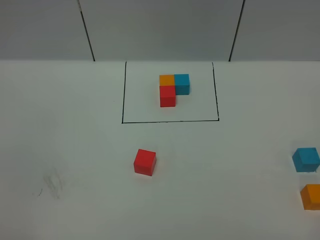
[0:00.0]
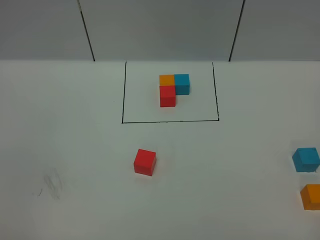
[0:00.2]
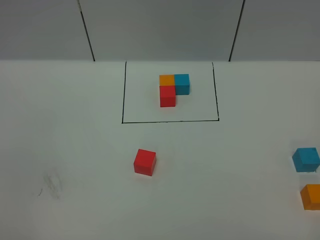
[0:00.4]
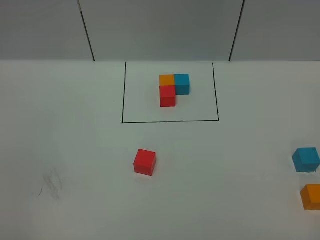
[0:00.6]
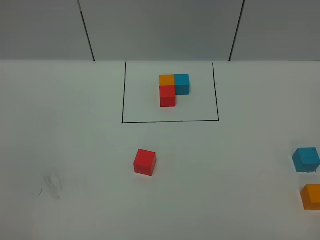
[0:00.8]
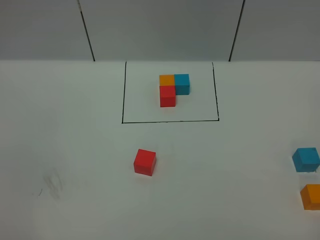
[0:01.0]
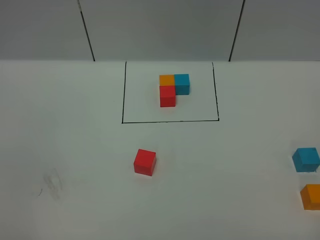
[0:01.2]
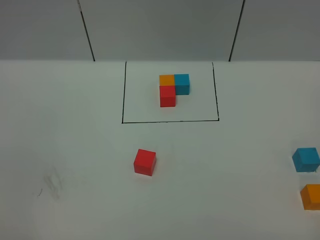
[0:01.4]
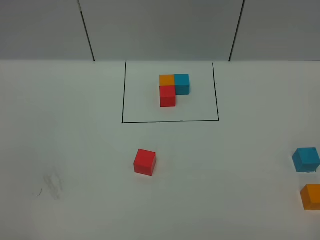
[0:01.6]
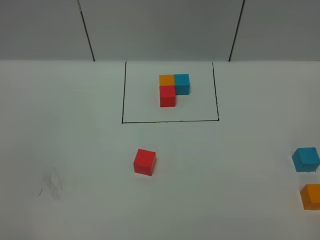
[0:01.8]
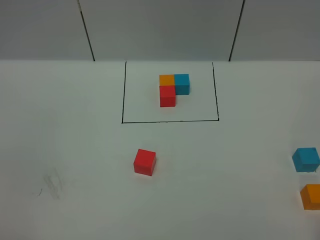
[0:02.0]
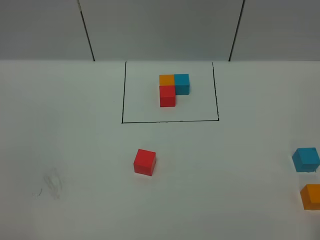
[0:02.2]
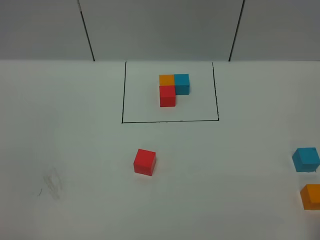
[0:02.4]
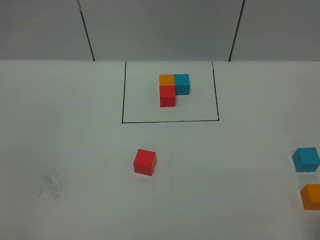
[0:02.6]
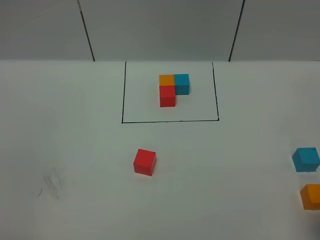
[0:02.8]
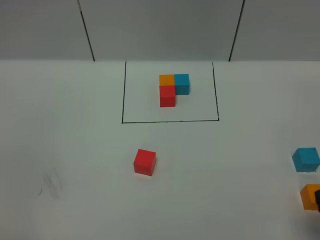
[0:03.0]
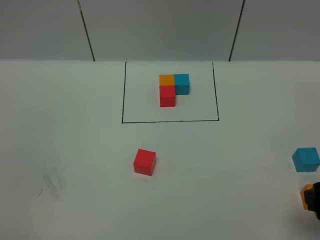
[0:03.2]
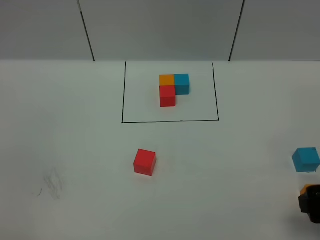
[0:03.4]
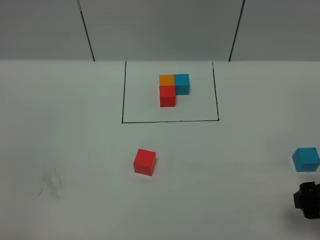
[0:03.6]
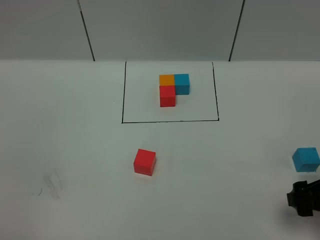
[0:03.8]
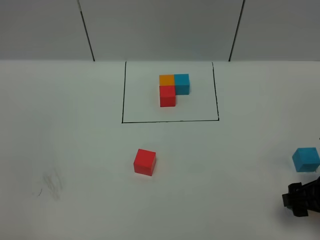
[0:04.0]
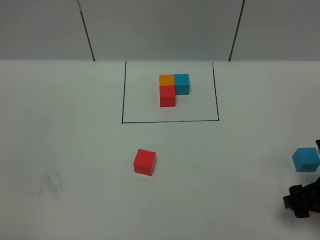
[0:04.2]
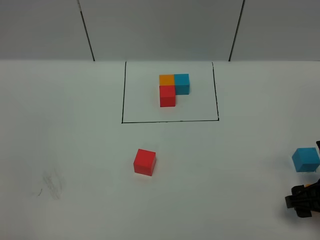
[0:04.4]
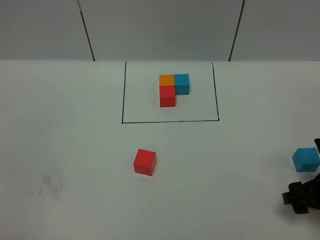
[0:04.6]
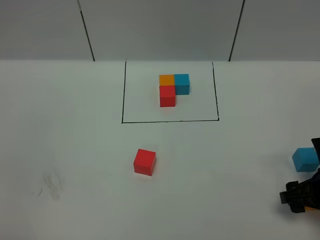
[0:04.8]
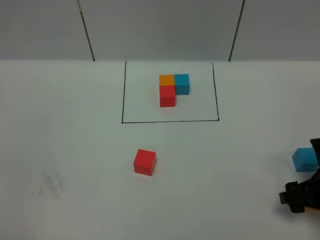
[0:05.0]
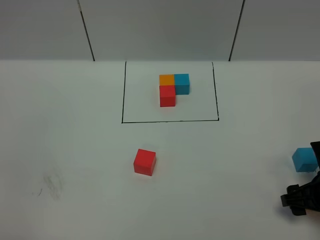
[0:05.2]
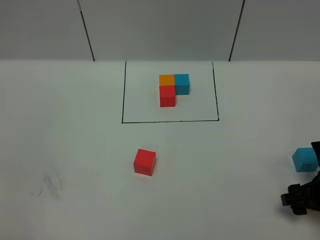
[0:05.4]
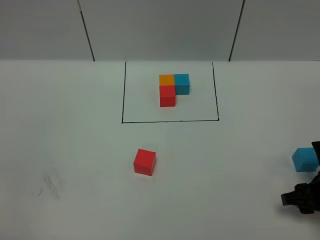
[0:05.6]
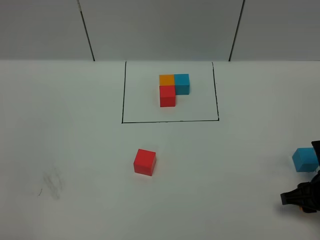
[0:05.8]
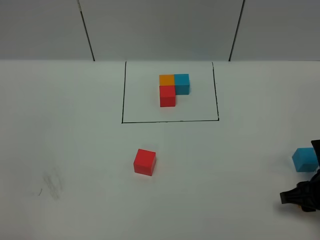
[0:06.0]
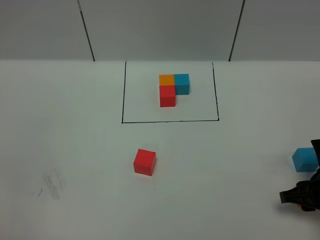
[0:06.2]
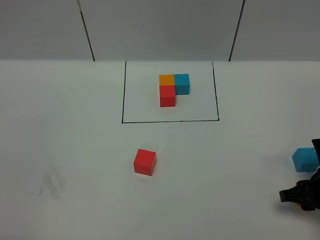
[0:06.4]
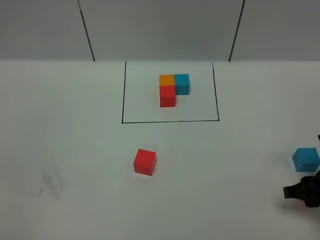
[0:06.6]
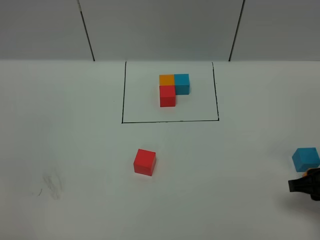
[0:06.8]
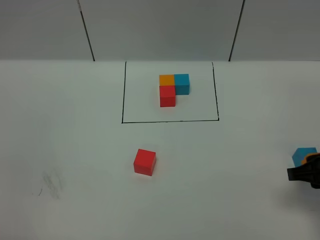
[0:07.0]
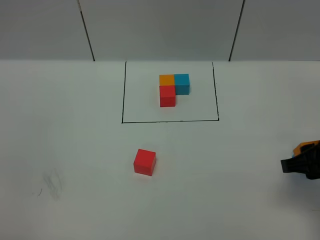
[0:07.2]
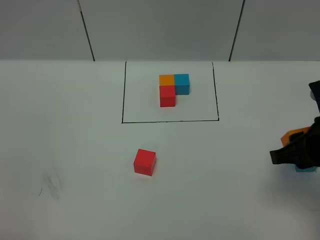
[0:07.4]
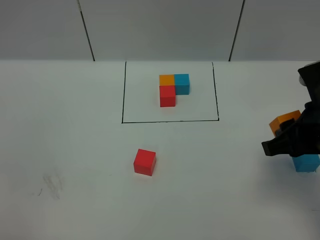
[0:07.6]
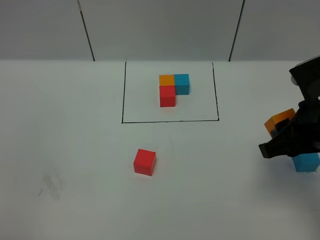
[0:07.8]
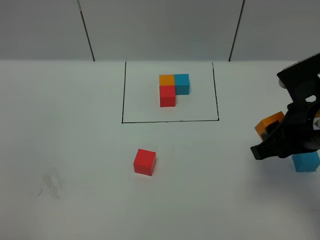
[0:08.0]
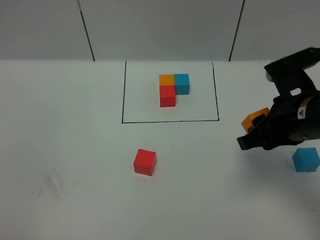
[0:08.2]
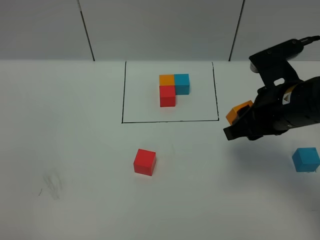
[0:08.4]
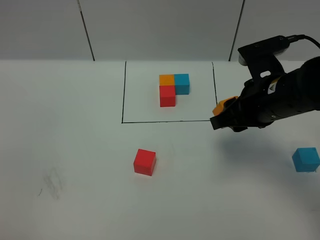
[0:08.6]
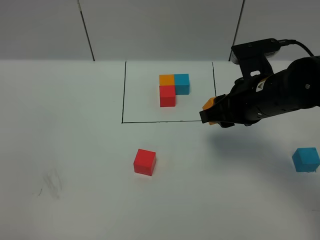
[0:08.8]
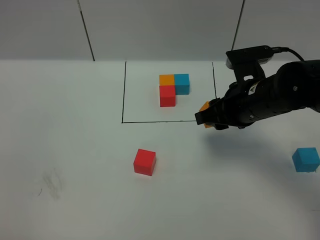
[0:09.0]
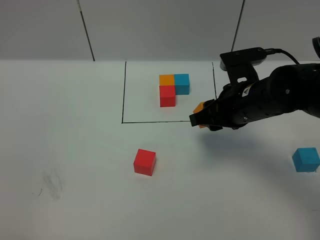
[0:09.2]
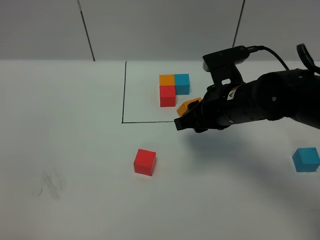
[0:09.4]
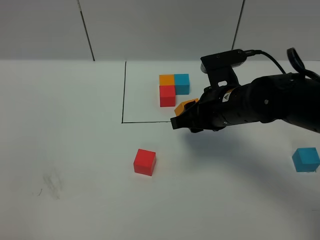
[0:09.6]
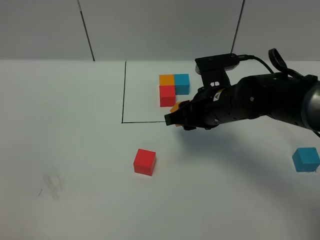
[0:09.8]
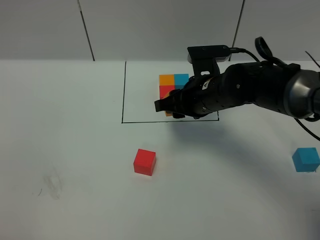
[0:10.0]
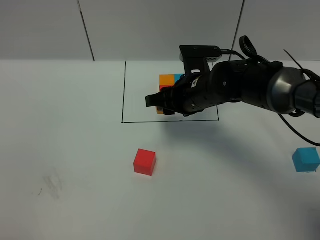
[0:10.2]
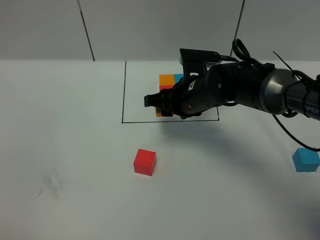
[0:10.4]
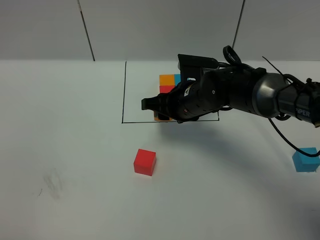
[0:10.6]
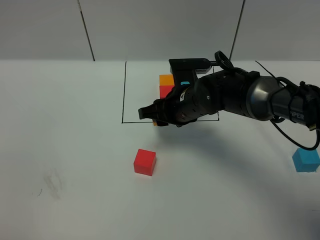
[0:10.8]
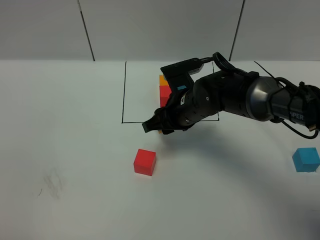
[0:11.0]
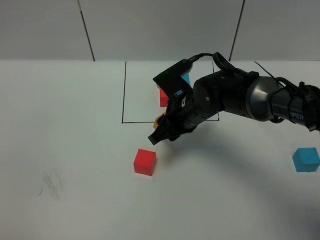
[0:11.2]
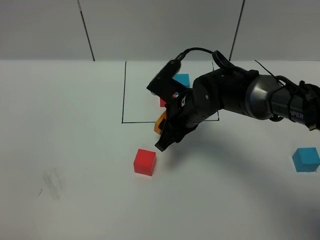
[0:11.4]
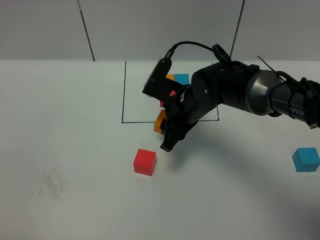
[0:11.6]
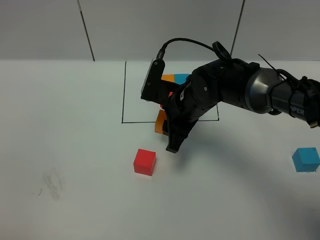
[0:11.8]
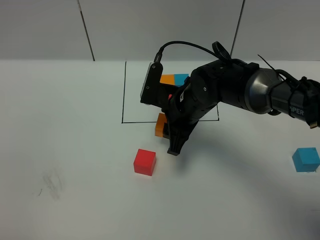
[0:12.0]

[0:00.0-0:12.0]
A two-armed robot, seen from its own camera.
Task of the whole recording: According to the building block template in front, assemble the scattered blocks together.
0:01.6 to 0:03.0: The right gripper heads forward, covering about 15 cm.
0:03.0 to 0:04.4: The right gripper shifts roughly 10 cm downward and forward.
0:04.4 to 0:06.0: The right gripper closes up.
0:06.0 to 0:07.6: The right gripper moves upward and to the left, roughly 15 cm.
0:07.6 to 0:09.0: The right gripper goes roughly 15 cm forward, to the left and downward.
0:09.0 to 0:10.4: The right gripper shifts roughly 10 cm to the left and forward.

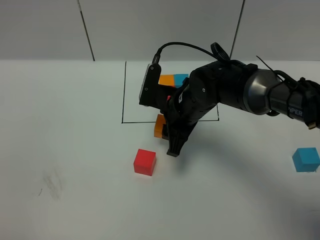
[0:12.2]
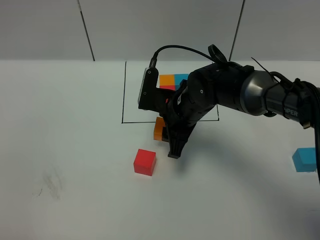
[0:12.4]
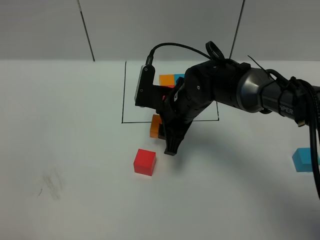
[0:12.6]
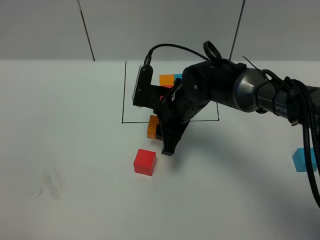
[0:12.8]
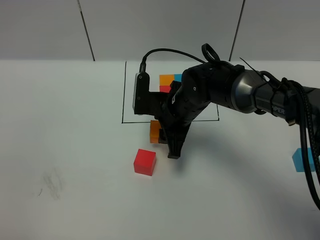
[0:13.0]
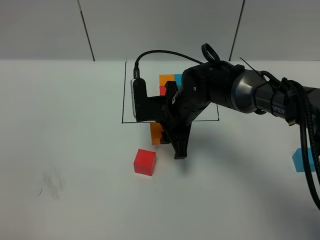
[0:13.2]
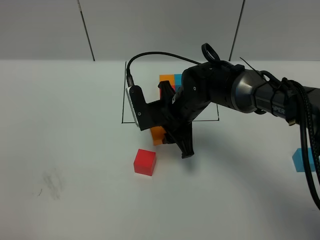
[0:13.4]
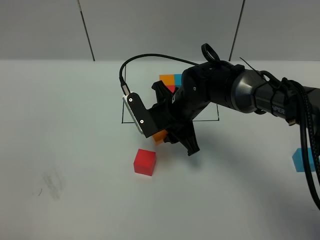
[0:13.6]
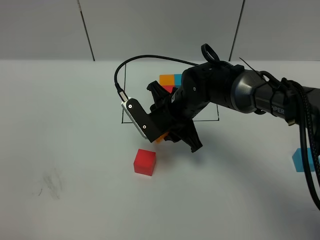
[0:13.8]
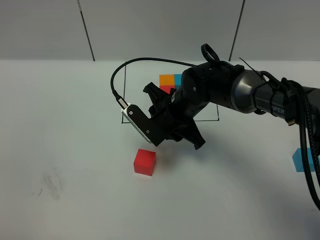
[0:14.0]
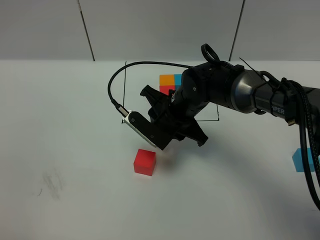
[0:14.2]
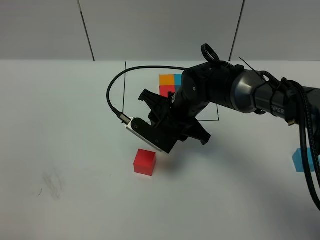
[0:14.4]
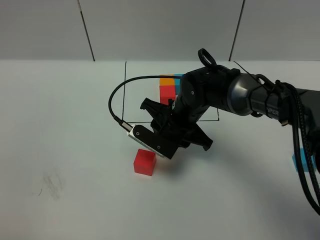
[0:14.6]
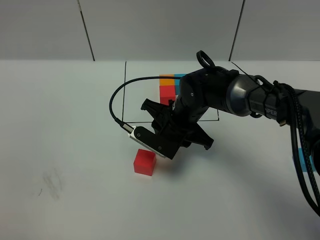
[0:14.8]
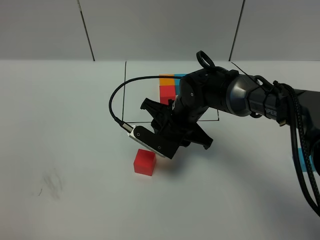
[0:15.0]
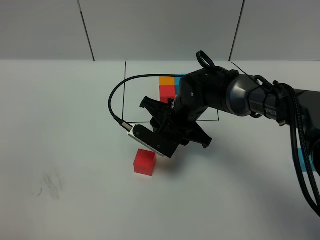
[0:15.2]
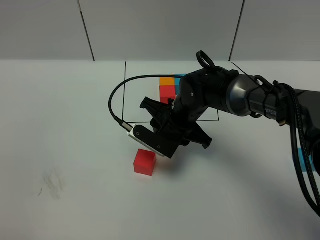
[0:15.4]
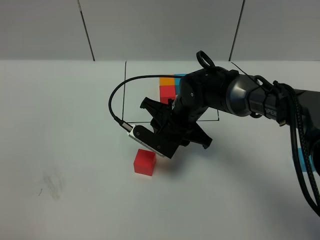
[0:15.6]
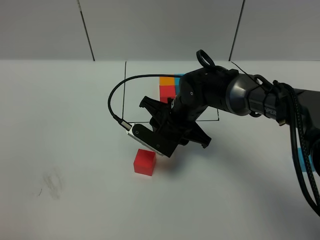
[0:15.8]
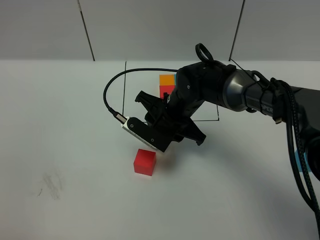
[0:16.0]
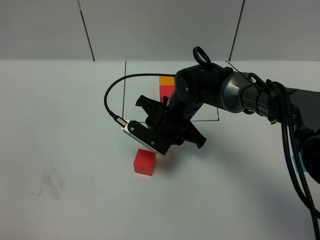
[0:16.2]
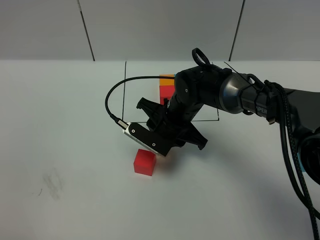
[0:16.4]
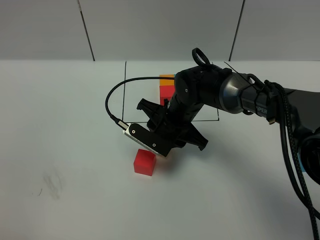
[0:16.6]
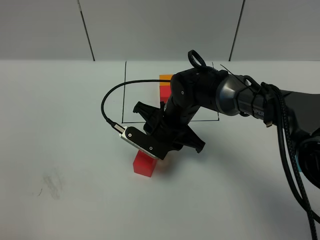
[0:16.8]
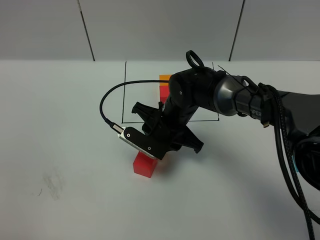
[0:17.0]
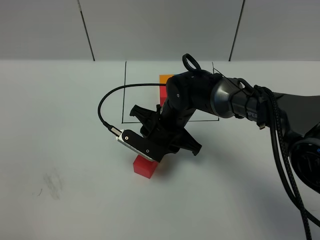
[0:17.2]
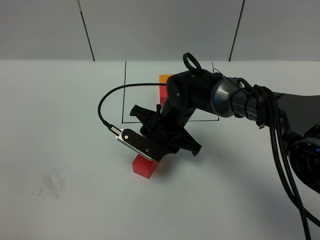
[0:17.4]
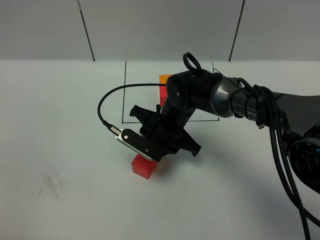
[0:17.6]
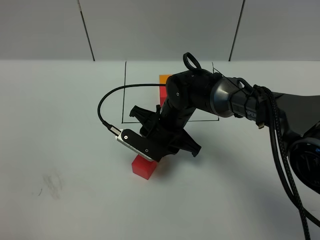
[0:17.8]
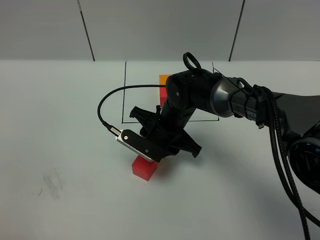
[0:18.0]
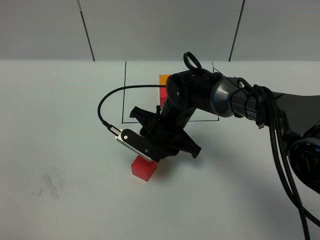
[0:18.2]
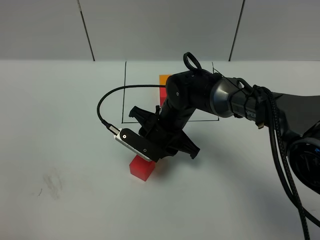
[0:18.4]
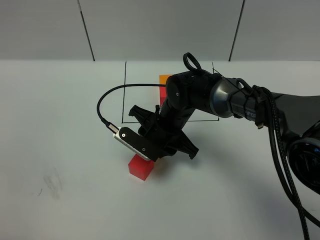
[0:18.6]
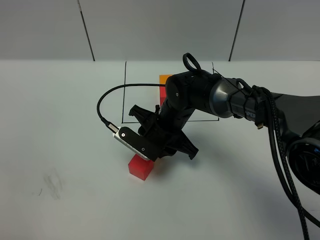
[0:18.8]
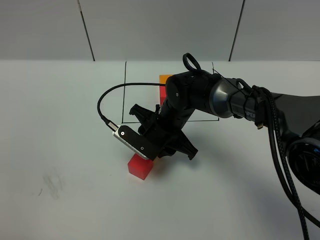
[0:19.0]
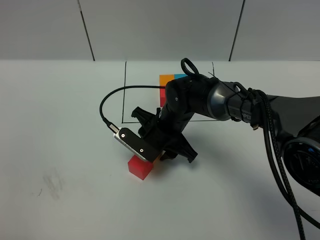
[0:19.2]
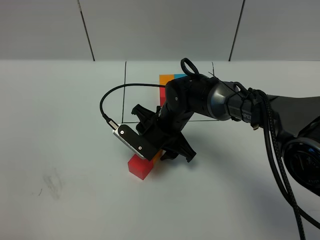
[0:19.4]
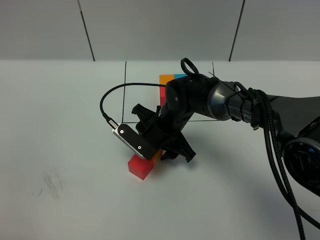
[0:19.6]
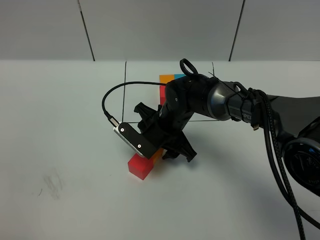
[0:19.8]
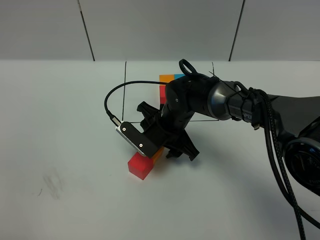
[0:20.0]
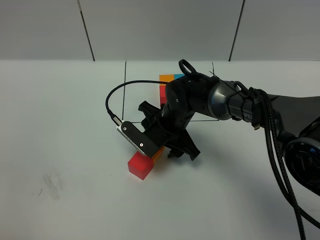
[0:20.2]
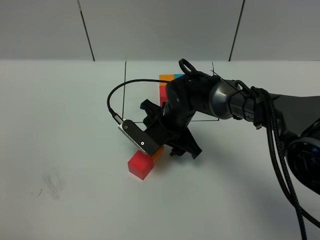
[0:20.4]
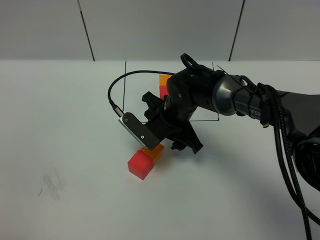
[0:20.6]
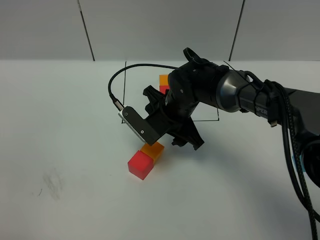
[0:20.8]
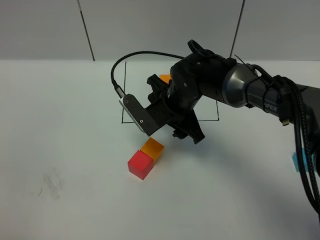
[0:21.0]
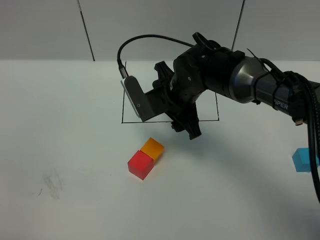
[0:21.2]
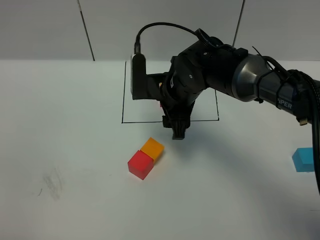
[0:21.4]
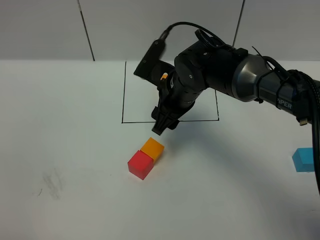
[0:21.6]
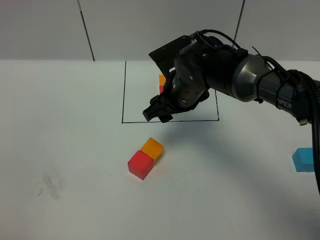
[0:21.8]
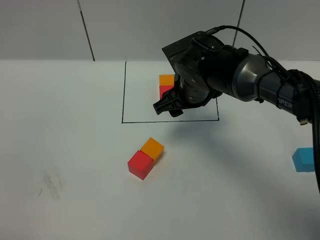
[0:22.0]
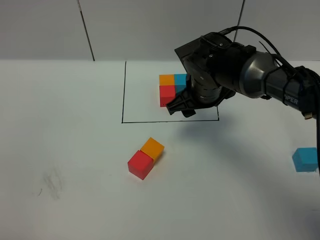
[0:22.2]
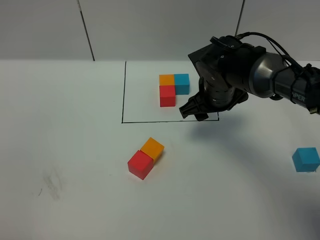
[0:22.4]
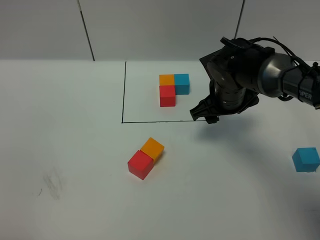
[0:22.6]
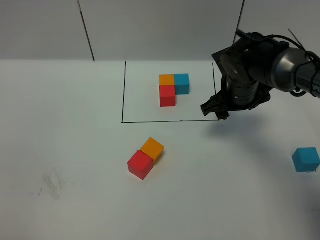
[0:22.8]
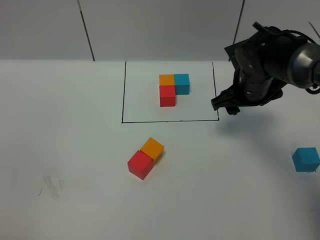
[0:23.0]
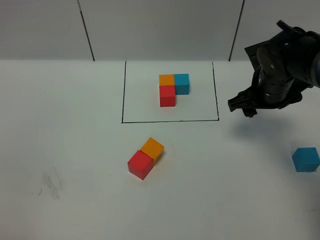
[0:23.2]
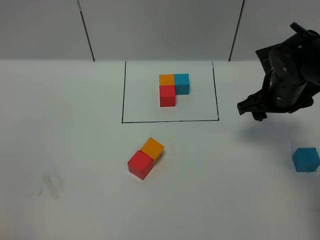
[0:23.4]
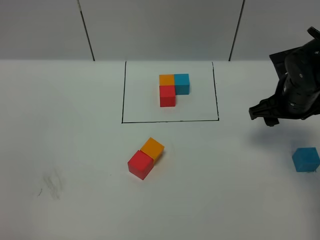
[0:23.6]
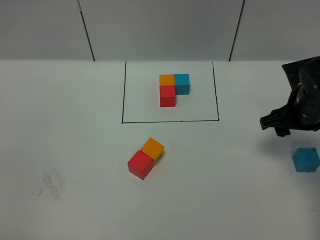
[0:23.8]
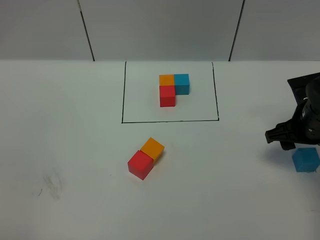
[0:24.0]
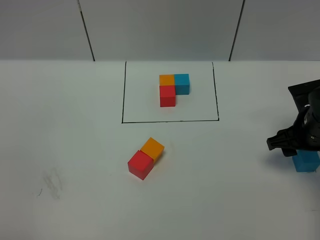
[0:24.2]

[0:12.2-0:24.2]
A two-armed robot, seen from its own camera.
Task of the whole recording: According to the building block template in front, assemble the scattered blocks together.
Step, 0:12.2 to 0:20.8: Put the orange cube on the behind of the red cube.
0:15.2 to 0:16.6: Neither gripper changes place.
0:16.6 to 0:19.8: There are only small adjustments of the grippers.
0:19.8 to 0:21.2: The right gripper moves upward, some 10 cm.
0:21.2 to 0:22.6: The right gripper moves to the right, roughly 10 cm.
0:22.6 to 0:24.2: The right gripper goes some 15 cm to the right and backward.
